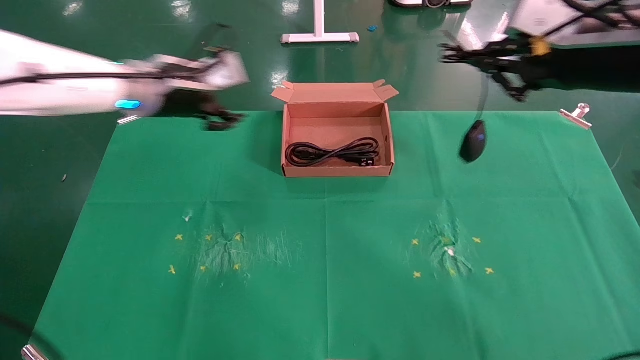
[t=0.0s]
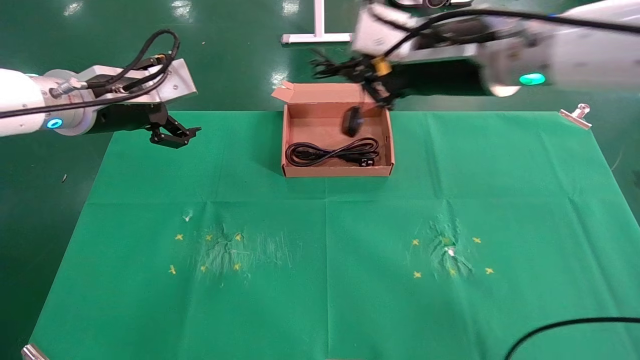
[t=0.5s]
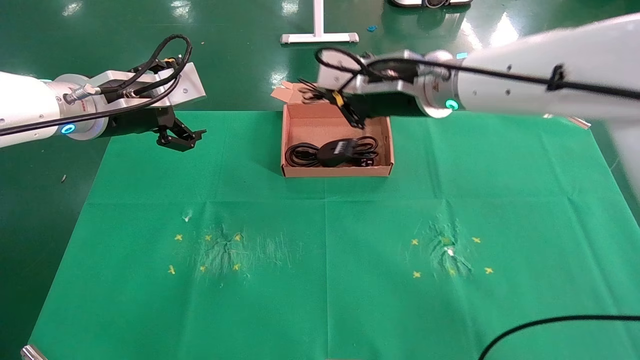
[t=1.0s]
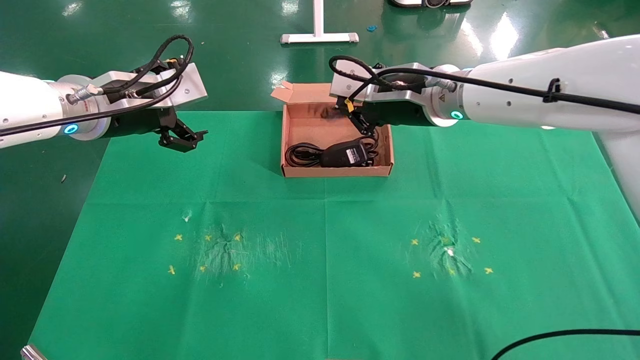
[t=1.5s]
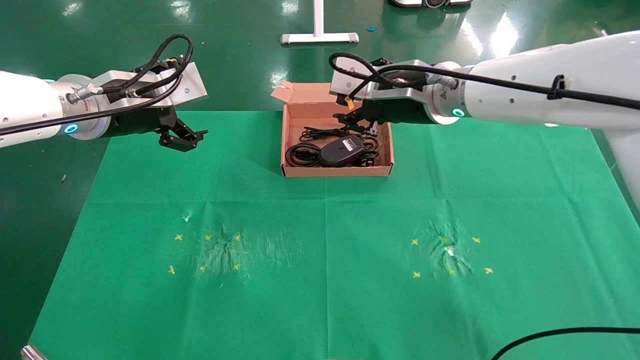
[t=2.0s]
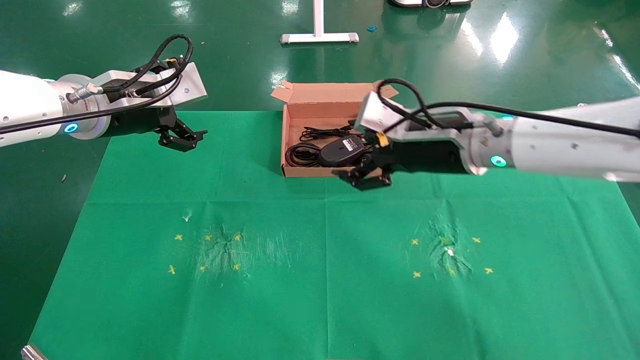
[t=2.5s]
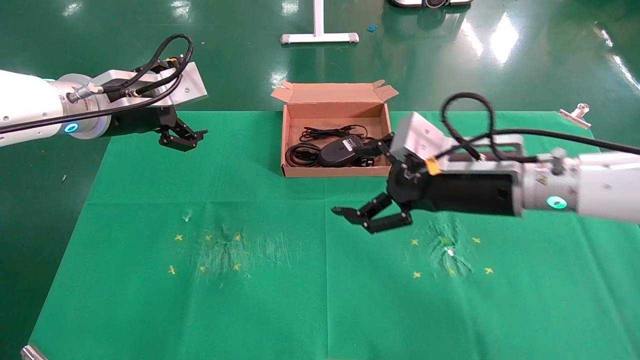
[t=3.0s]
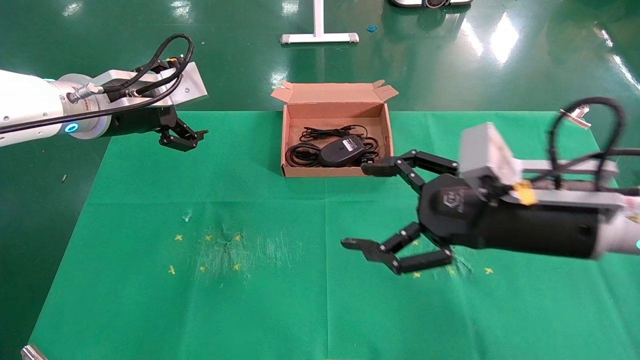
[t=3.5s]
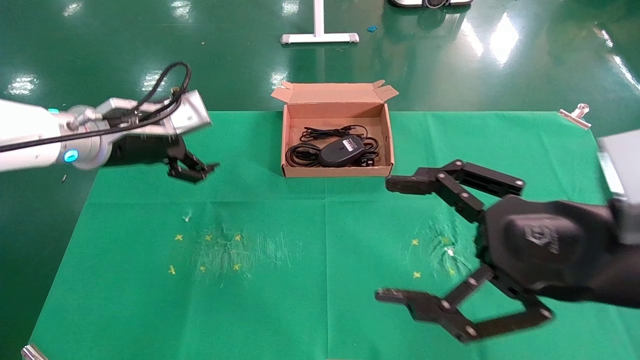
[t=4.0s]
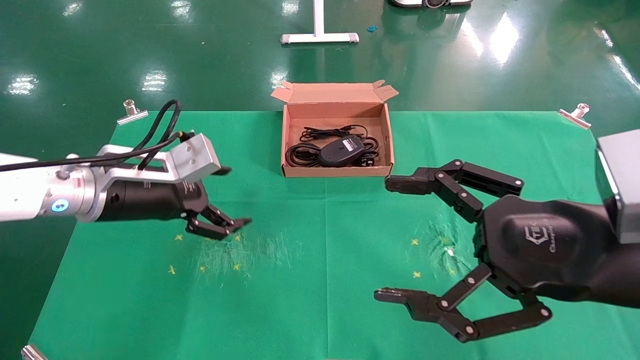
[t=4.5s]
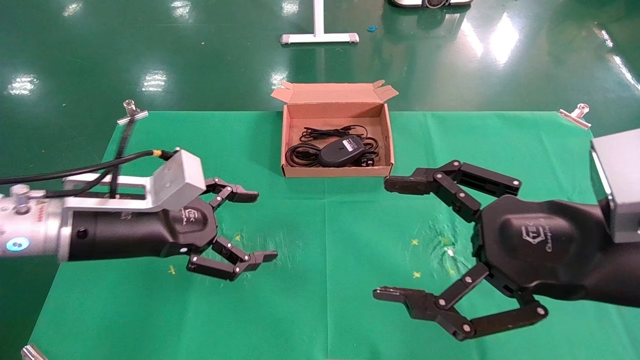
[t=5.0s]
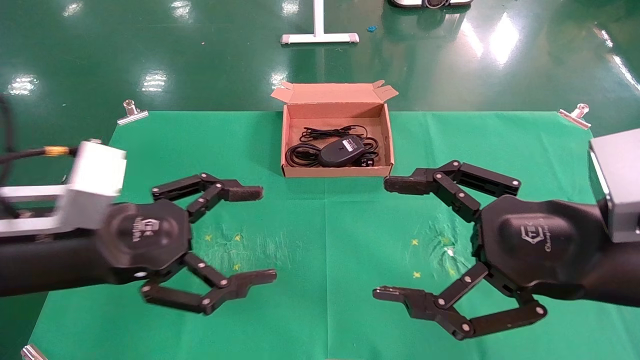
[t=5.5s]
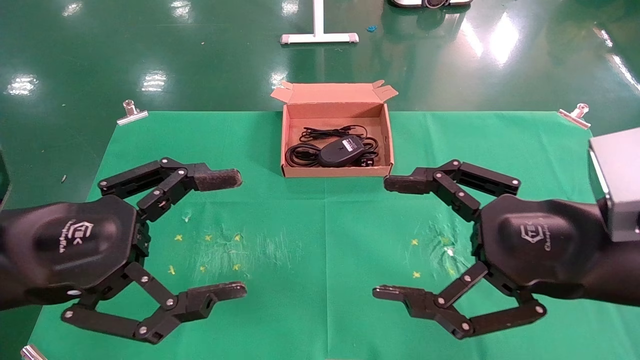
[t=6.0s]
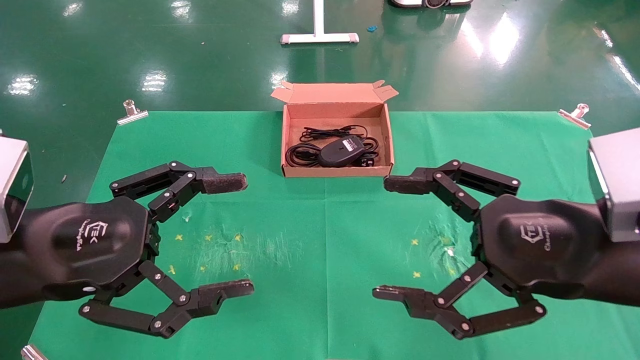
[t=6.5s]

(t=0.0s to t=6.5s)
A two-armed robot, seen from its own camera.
Task of the whole recording: grasp data cable left put into box grasp mouse right put into box.
t=0.0s - t=2.0s: The left gripper travels backward by approximately 5 cm, and opens its fingers, while the right gripper heads to the left and forward, covering some 20 cm.
t=2.0s - t=4.5s: The right gripper moves backward and to the right, some 25 cm, and opens its fingers, while the left gripper goes about 10 cm downward.
t=4.5s - t=6.5s: The left gripper travels backward by about 15 cm.
